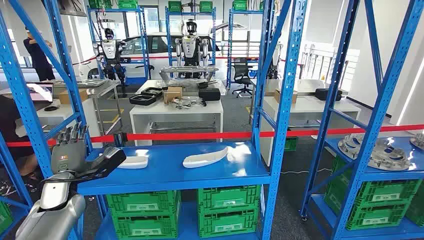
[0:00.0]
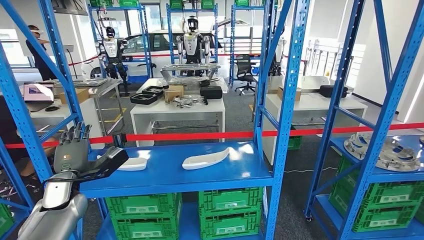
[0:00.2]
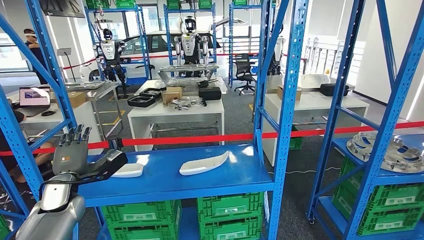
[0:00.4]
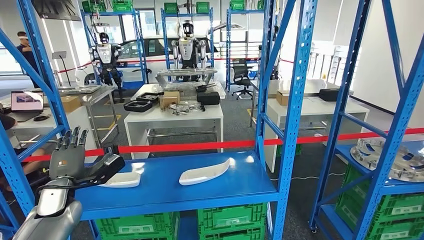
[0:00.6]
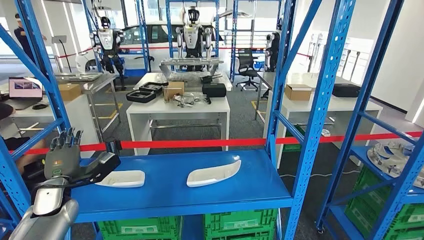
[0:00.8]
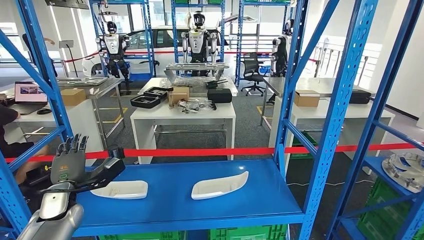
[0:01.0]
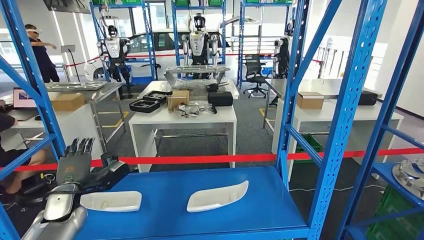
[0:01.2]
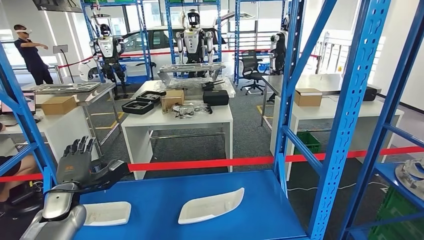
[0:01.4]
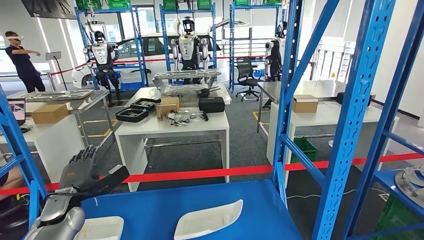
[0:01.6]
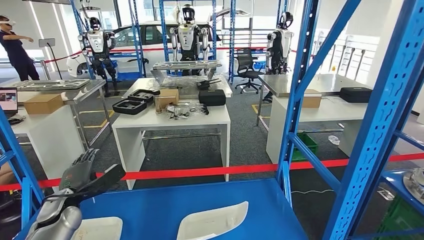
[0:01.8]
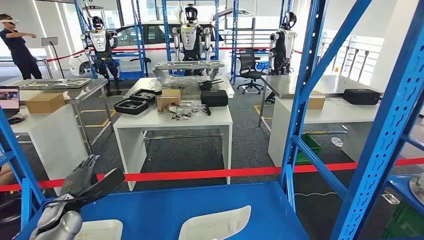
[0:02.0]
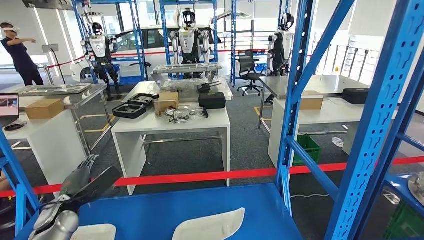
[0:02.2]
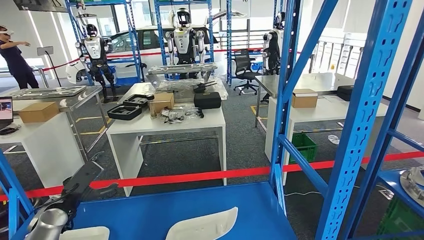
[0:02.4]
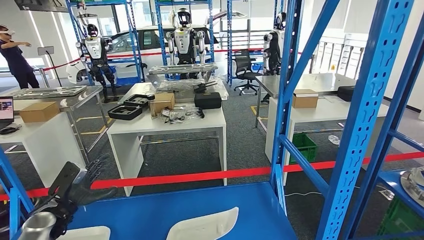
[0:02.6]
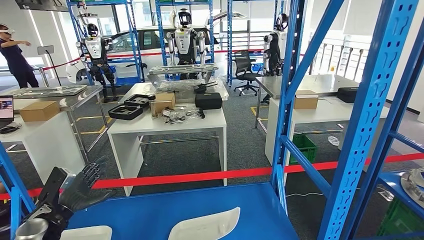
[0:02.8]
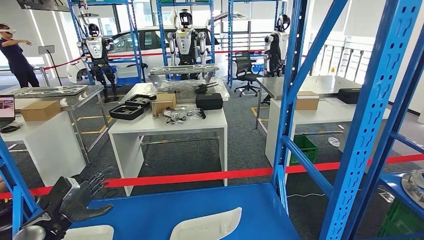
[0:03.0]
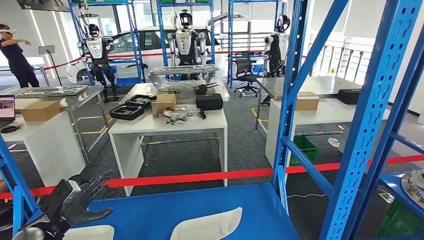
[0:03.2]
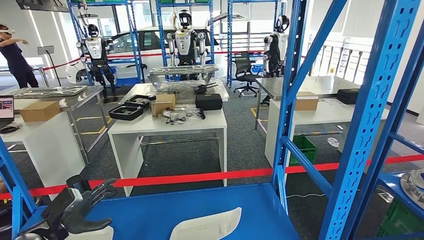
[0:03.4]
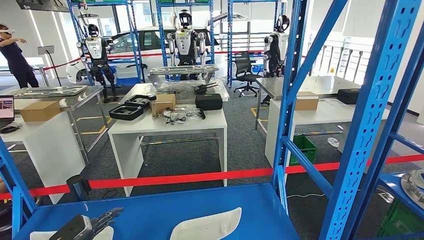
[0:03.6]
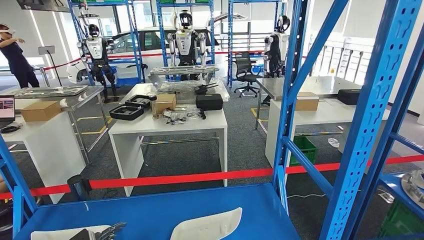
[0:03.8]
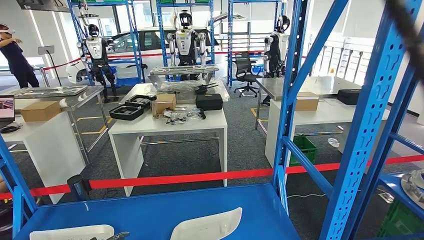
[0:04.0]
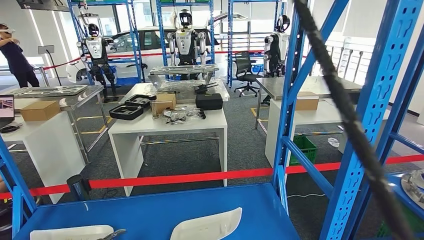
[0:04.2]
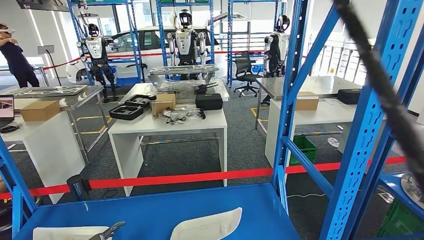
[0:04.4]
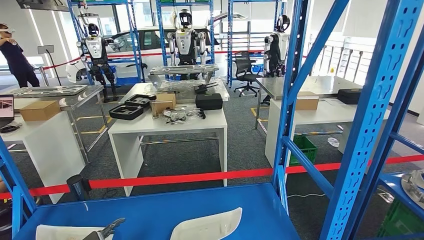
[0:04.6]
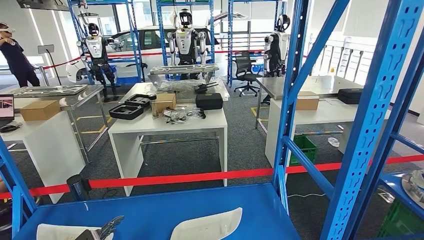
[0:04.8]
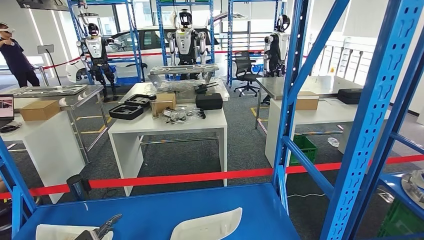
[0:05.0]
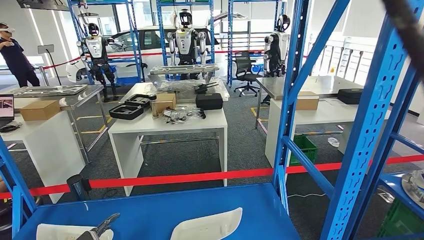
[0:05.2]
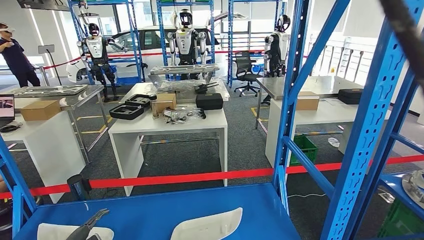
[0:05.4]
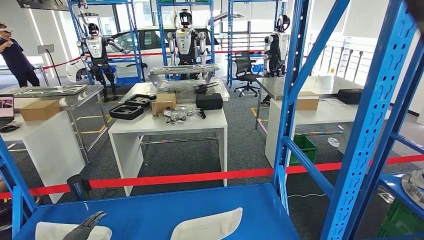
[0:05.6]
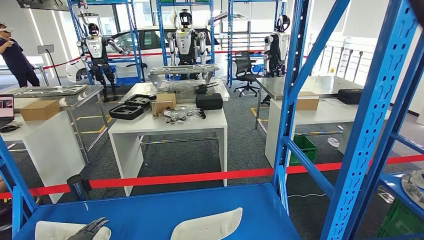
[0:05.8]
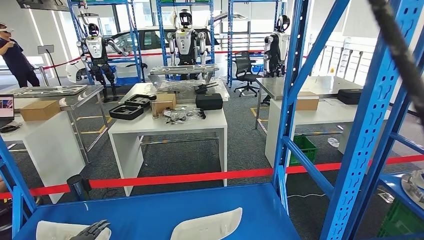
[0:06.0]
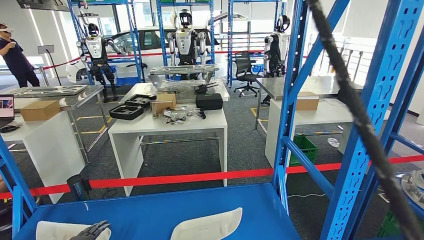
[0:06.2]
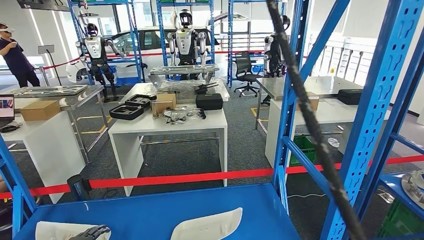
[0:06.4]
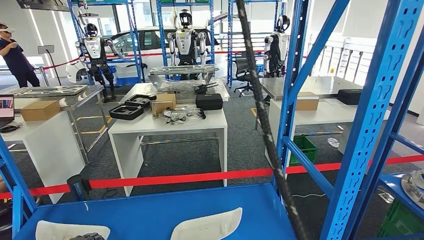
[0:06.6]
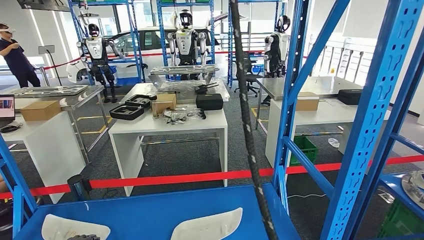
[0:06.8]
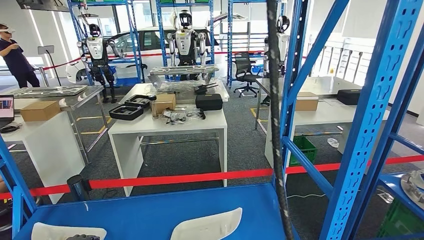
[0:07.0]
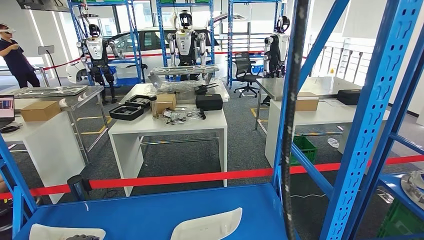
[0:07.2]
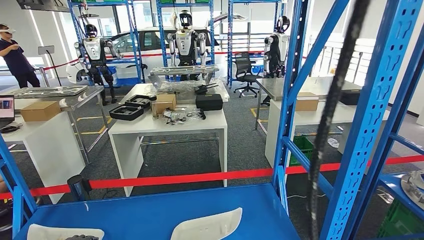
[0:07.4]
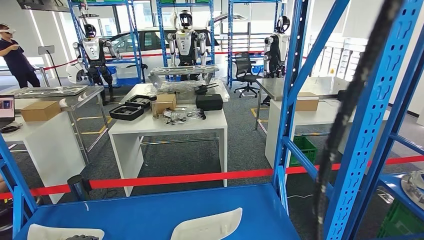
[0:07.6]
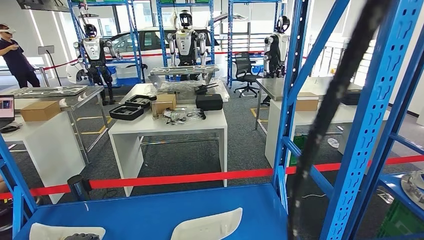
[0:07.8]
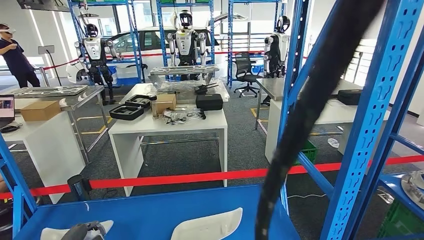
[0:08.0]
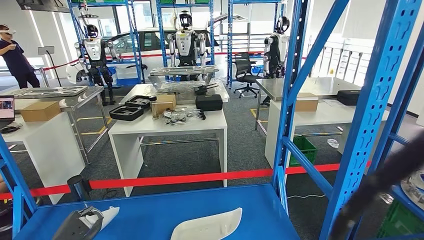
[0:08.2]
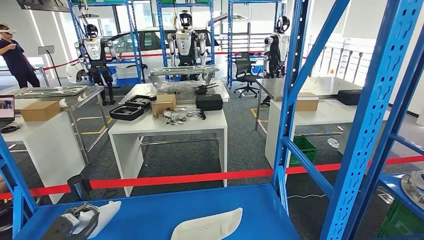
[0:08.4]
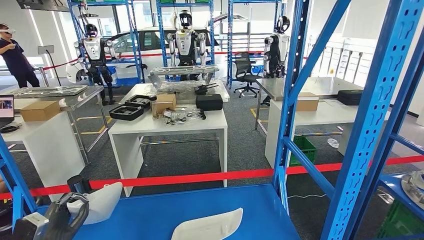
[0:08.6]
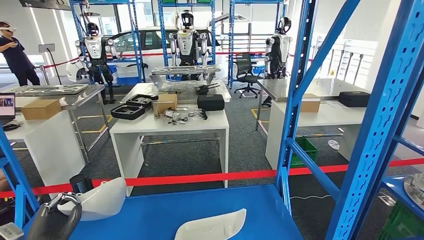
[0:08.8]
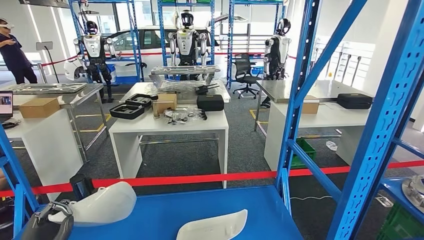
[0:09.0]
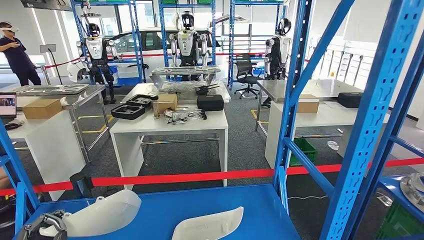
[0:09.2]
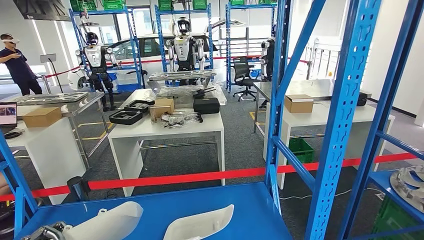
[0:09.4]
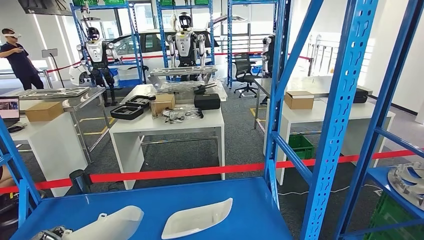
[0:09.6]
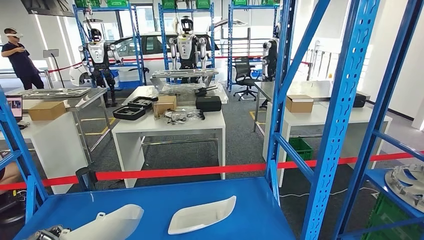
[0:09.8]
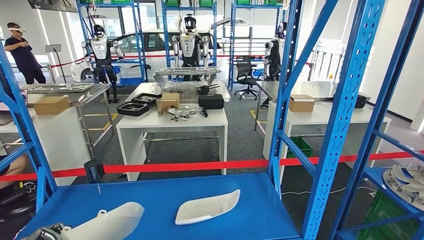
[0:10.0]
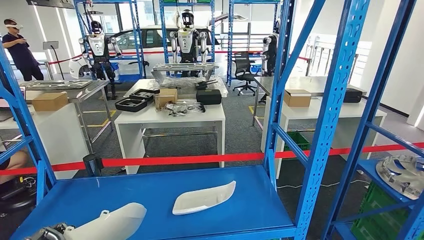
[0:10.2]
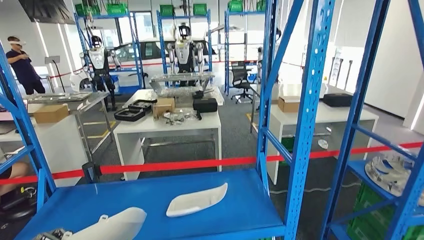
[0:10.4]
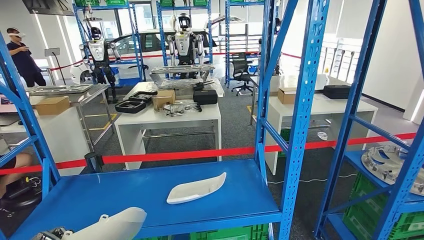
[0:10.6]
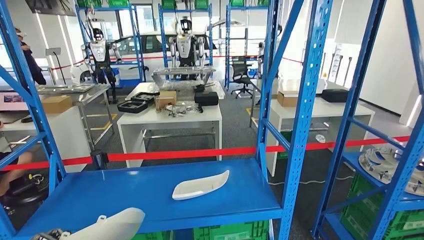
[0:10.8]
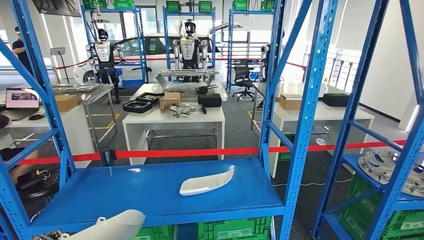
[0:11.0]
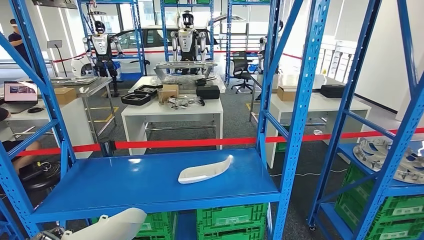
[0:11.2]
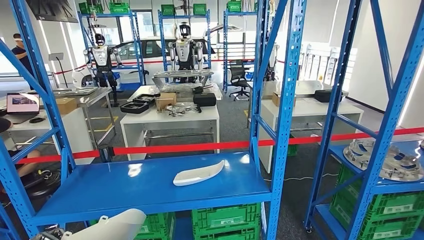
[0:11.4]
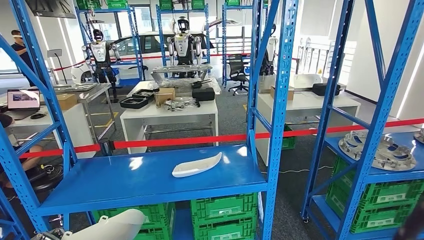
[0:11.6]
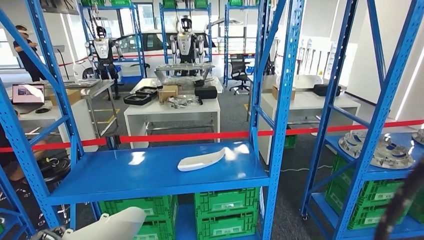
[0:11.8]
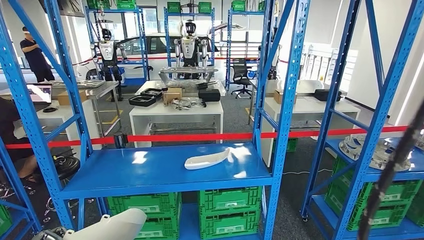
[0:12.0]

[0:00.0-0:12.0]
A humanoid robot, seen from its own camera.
Step, 0:00.0 to 0:10.4: Take small components from the rack.
0:03.0 to 0:04.4: The left hand goes about 15 cm downward and backward.
0:06.0 to 0:07.6: The hands move only a little.

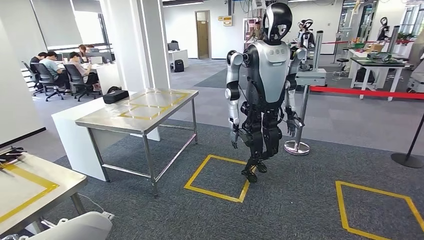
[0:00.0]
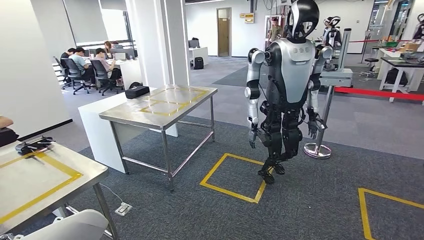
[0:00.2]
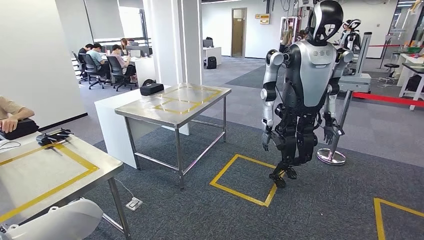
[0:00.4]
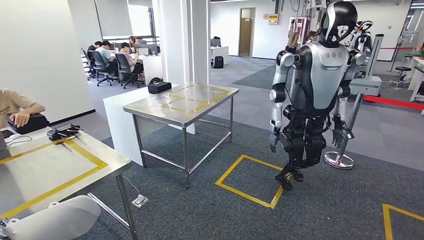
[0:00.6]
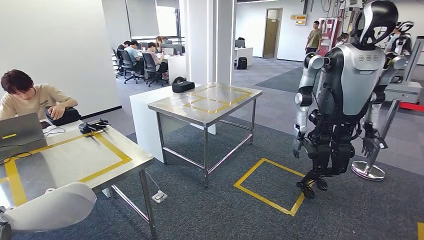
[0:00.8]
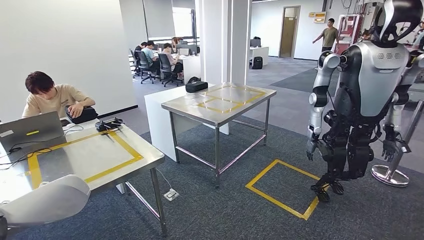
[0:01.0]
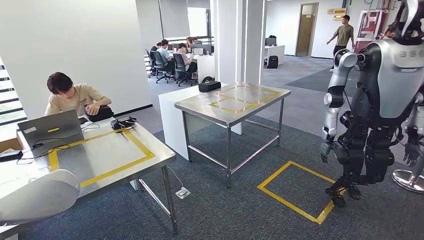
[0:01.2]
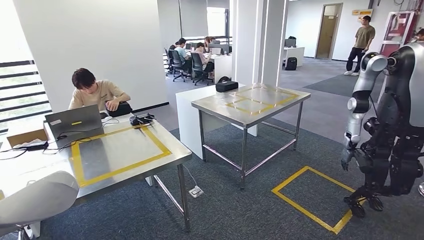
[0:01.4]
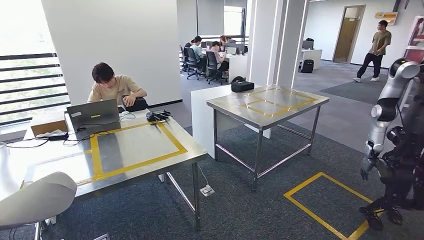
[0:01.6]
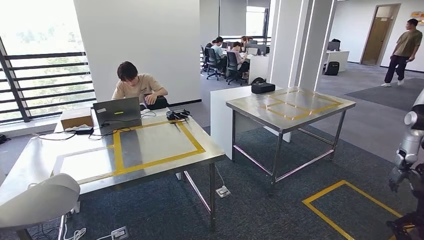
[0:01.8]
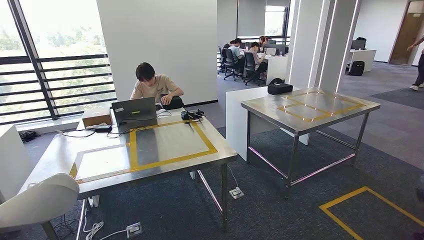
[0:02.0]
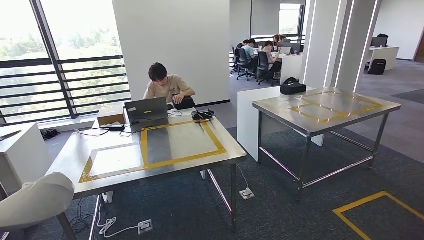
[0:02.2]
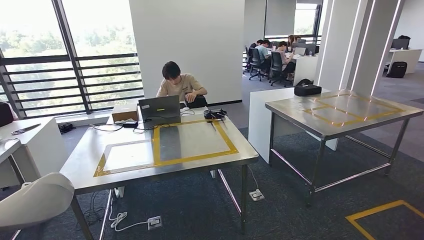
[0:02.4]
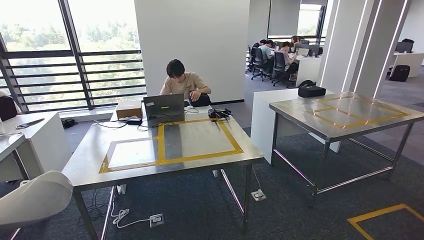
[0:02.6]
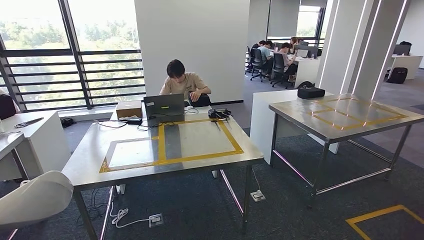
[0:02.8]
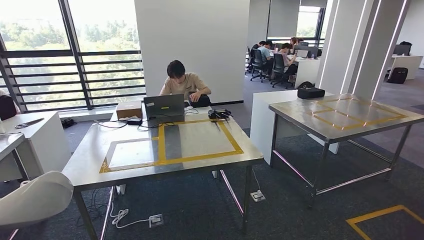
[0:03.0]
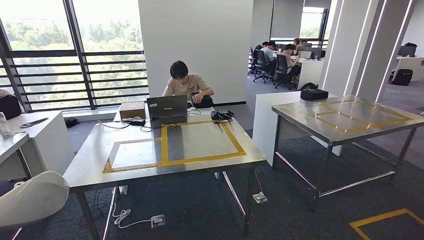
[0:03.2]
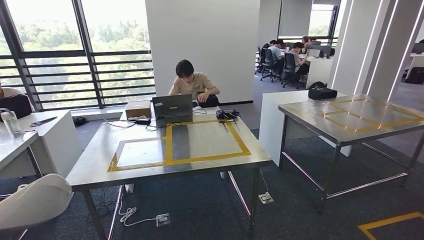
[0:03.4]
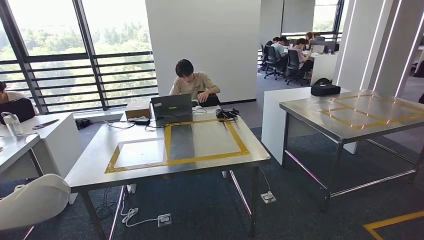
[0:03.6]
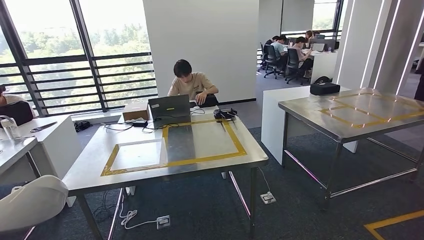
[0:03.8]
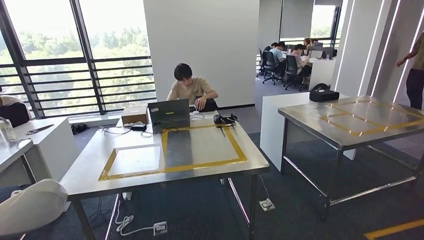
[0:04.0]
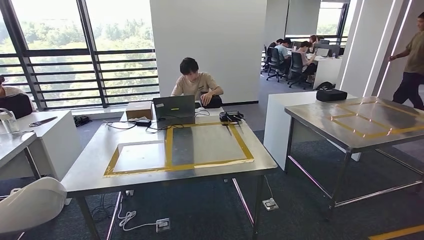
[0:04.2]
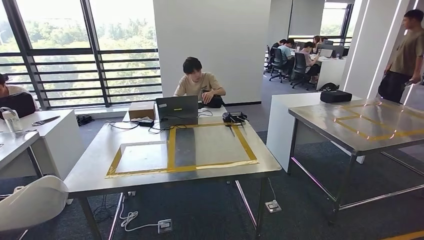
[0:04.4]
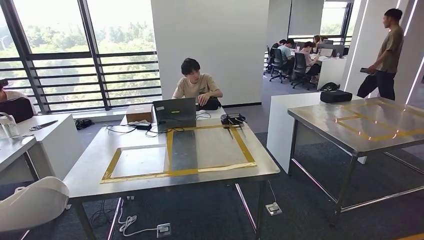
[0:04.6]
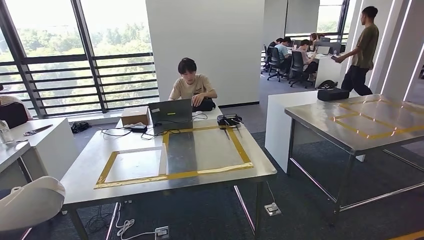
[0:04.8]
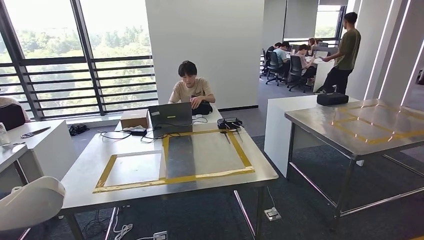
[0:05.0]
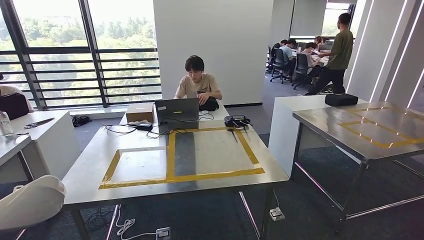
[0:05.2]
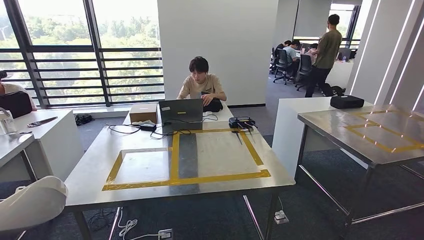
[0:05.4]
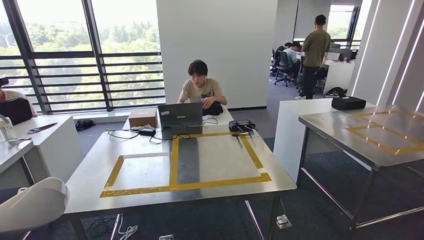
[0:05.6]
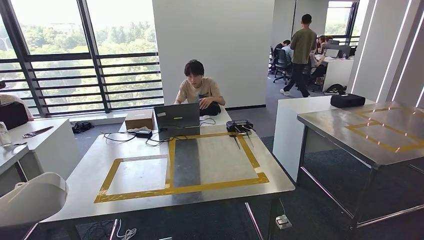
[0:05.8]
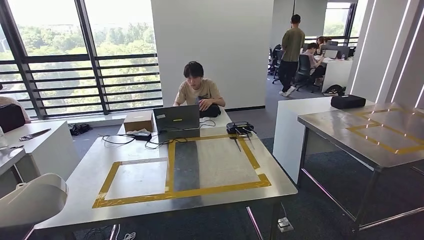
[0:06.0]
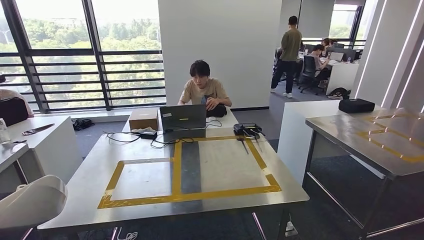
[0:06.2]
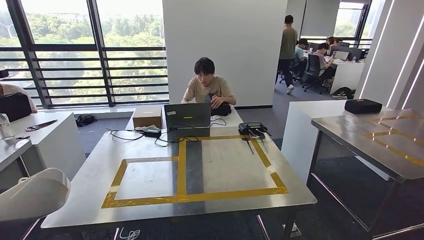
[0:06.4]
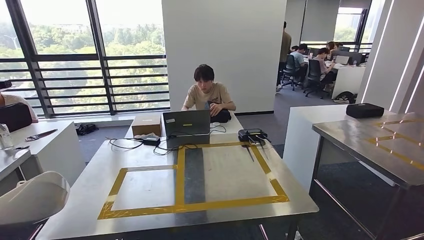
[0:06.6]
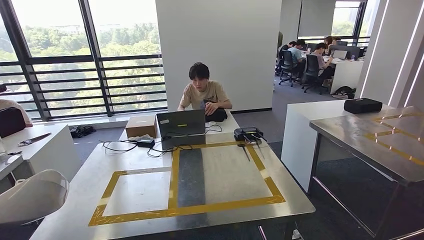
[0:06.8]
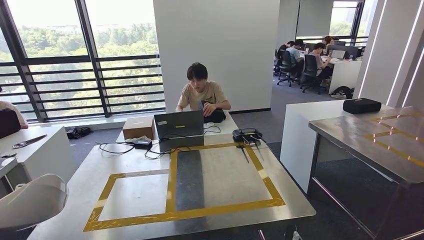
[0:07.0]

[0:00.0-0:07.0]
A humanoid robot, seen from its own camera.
Step, 0:00.0 to 0:03.0: Move the small parts to the workbench.
